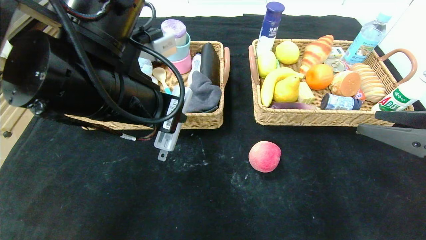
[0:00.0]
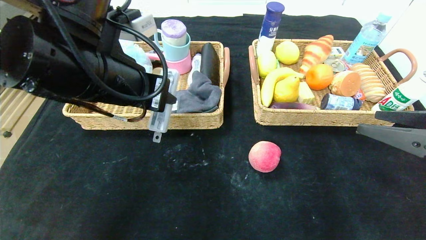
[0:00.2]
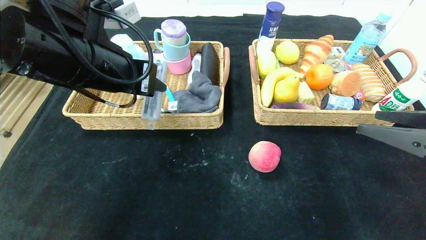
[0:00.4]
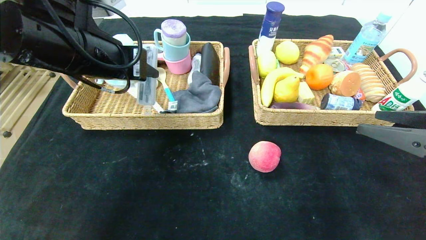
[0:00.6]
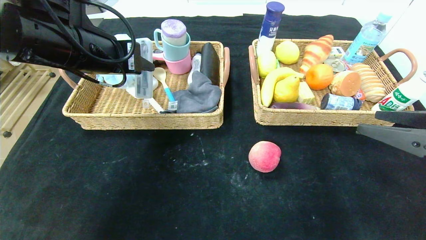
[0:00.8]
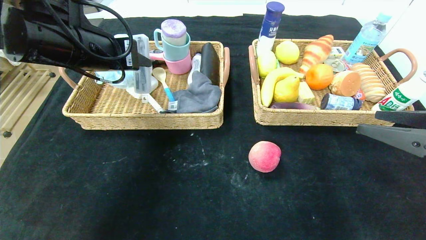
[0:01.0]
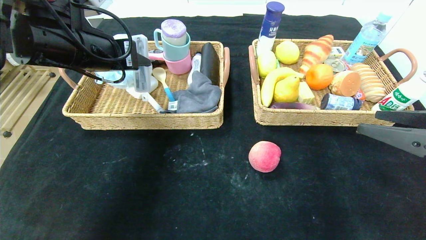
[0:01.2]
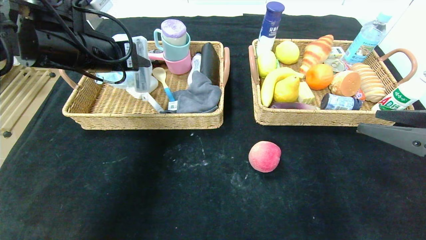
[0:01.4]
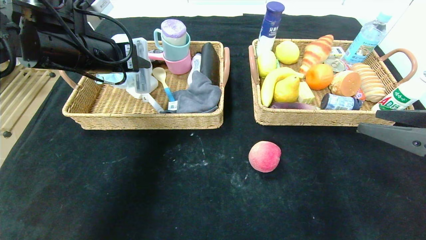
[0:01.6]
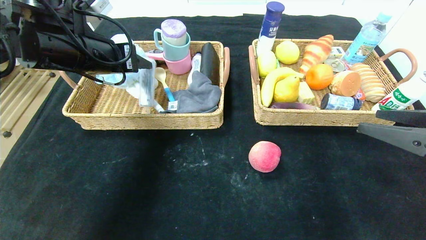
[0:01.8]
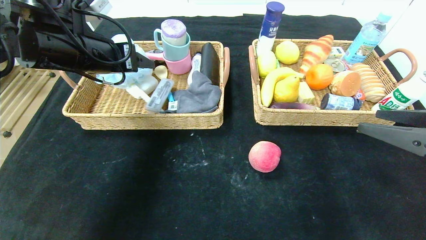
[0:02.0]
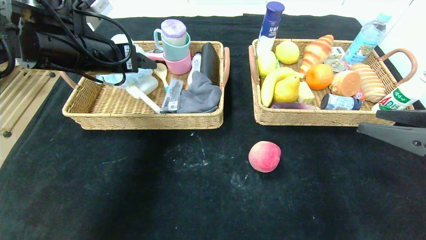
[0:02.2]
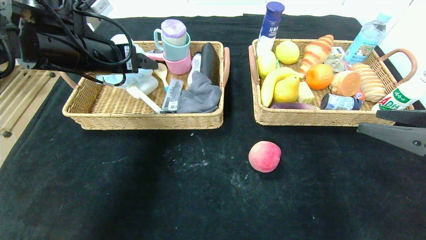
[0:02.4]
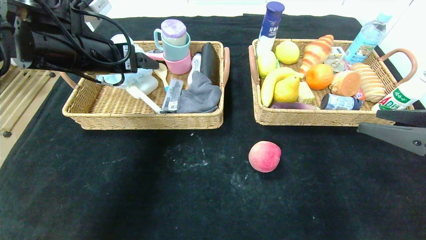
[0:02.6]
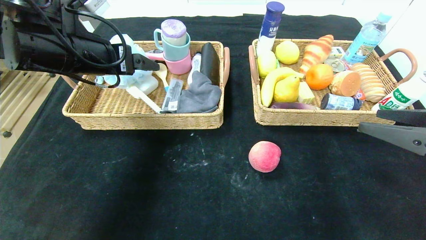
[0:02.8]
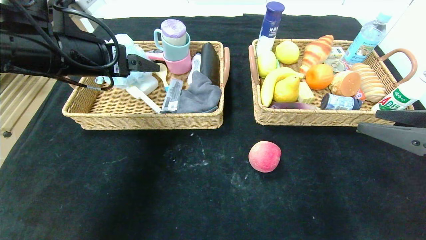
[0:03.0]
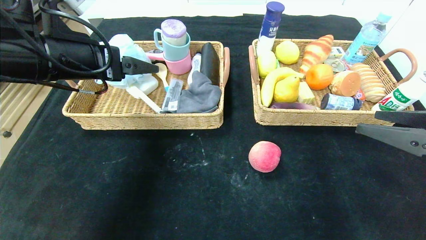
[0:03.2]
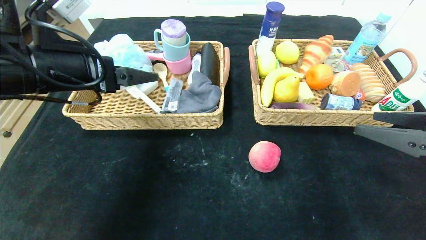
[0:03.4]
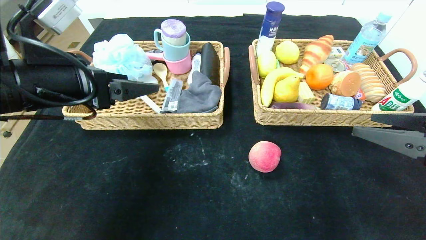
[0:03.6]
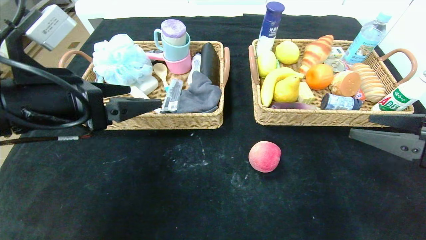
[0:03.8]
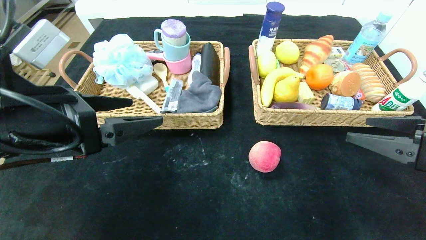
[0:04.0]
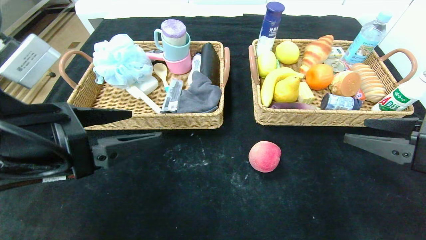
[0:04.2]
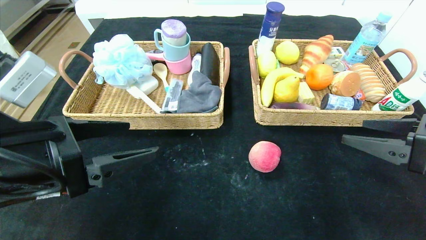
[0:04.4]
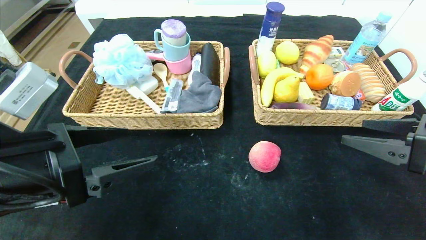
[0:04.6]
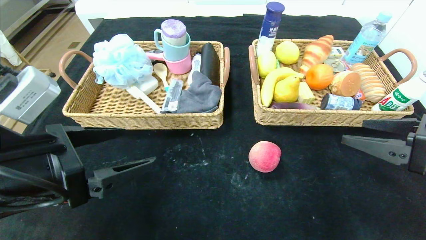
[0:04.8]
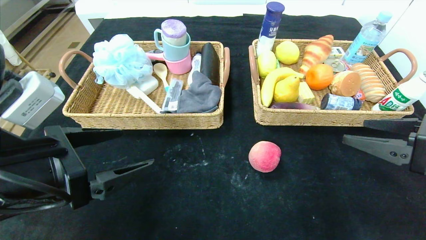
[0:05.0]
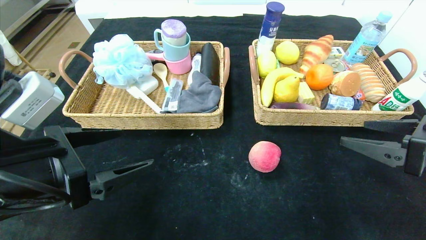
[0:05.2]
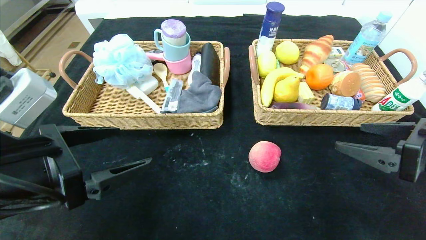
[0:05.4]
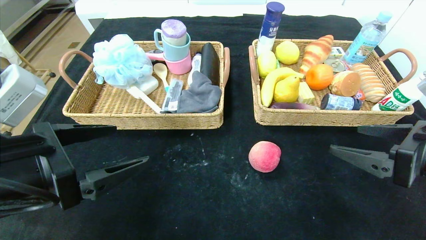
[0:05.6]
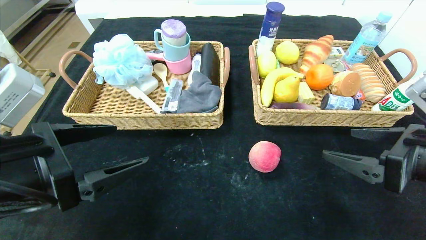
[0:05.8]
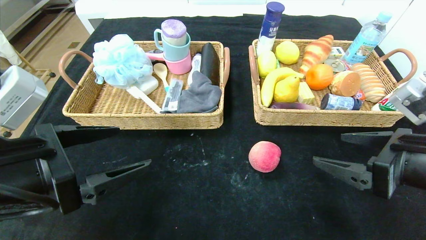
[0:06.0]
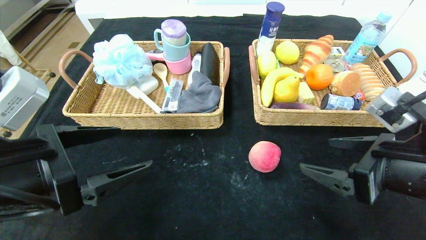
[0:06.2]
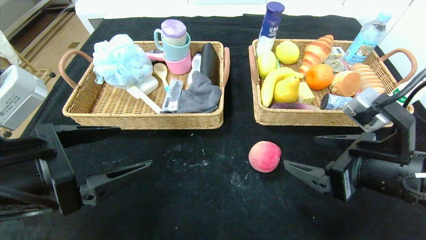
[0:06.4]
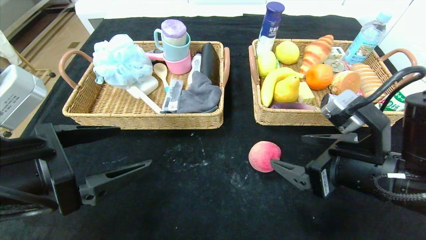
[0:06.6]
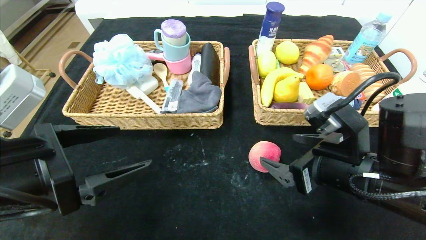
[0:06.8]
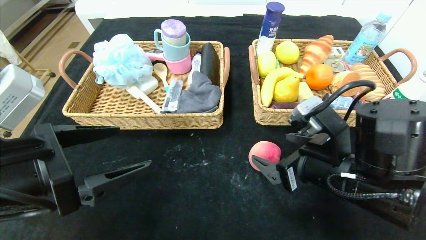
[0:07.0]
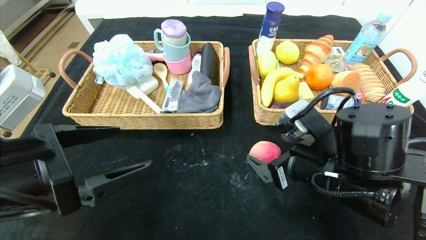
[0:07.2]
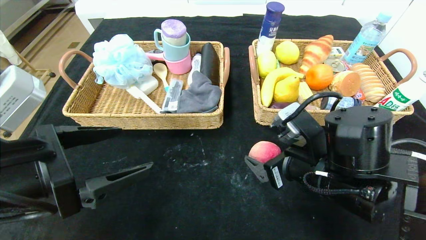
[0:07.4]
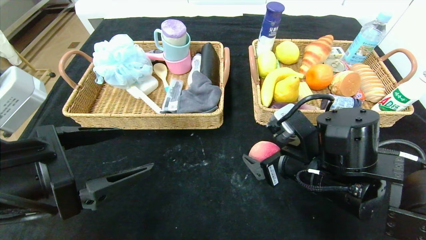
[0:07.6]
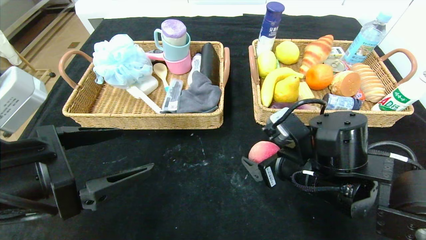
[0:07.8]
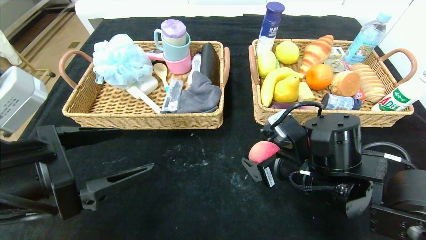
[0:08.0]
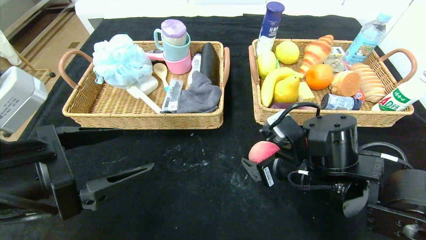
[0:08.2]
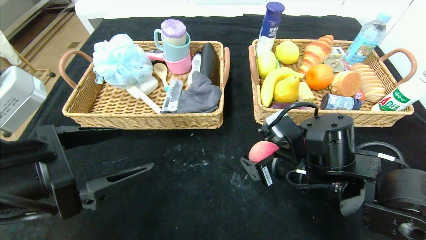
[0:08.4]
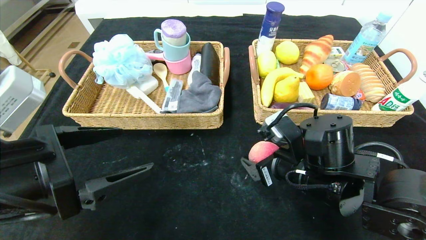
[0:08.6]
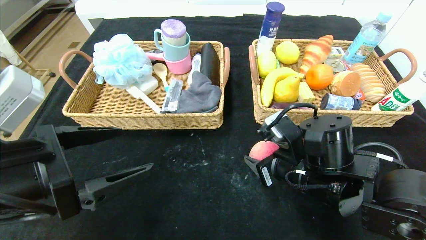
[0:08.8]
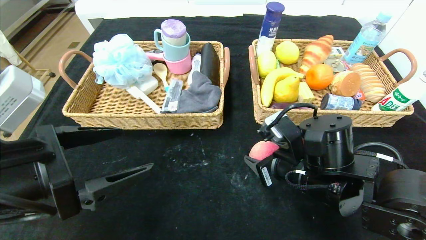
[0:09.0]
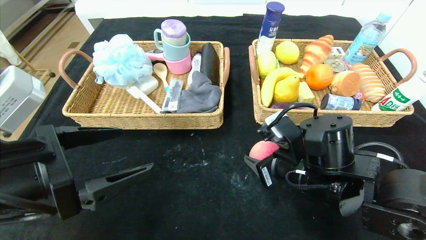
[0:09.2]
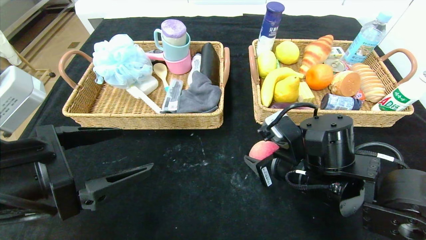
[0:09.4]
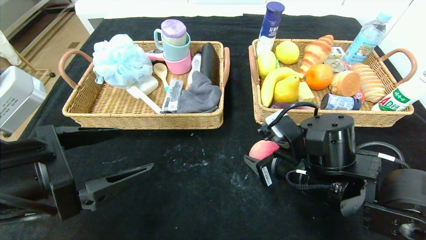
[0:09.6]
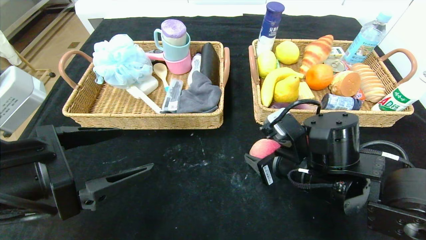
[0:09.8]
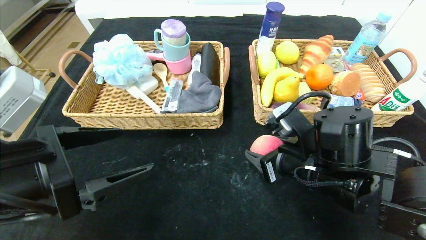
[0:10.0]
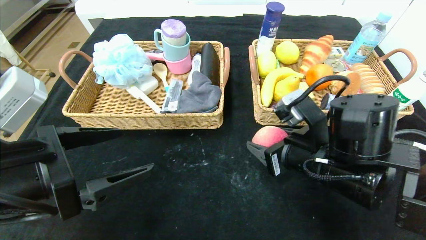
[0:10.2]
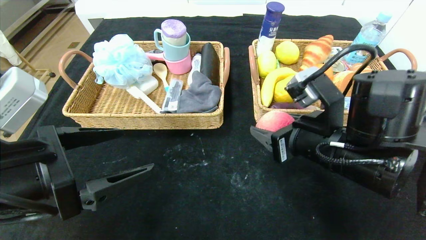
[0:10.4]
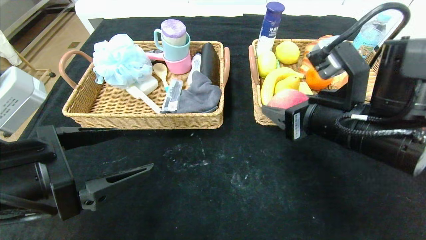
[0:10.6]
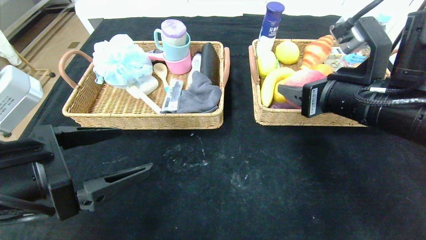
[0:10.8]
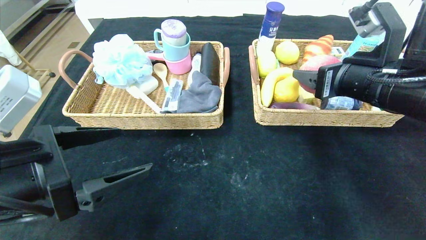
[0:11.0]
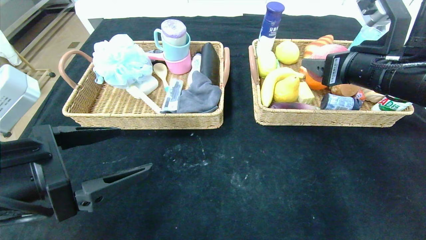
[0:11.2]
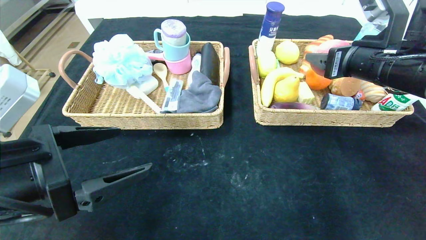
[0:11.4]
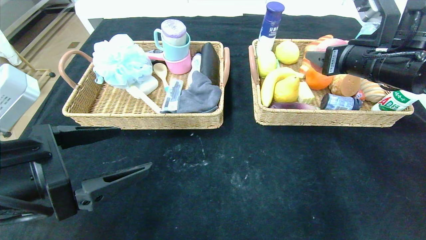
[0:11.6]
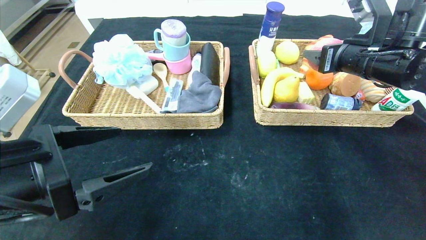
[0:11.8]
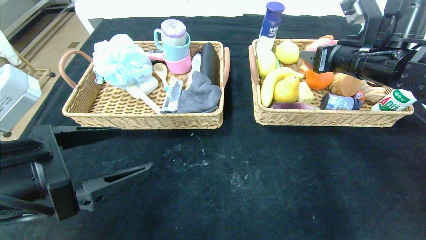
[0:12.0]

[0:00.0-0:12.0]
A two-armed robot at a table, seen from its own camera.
Step, 0:00.0 to 0:02.2: Grasp the compass and put it in the left basket.
0:00.0 to 0:01.6: The left gripper goes about 15 cm forward and to the left.
0:01.6 to 0:03.0: The left gripper opens its fingers.
0:03.0 to 0:04.4: The left gripper shifts some 15 cm backward and downward.
0:04.4 to 0:06.0: The right gripper heads to the left, covering some 5 cm.
0:06.0 to 0:07.6: The right gripper is displaced to the left, forward and downward by about 15 cm.
0:07.6 to 0:09.0: The right gripper closes.
0:09.0 to 0:10.4: The right gripper goes some 5 cm upward.
0:10.4 to 0:12.0: The right gripper is displaced forward, to the right and upward by some 20 cm.

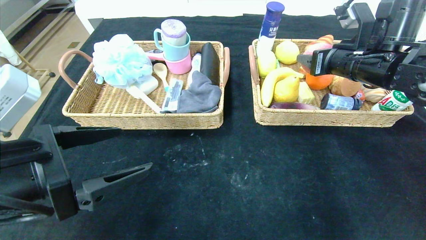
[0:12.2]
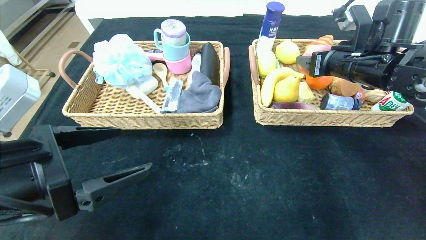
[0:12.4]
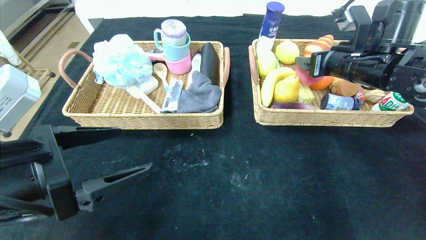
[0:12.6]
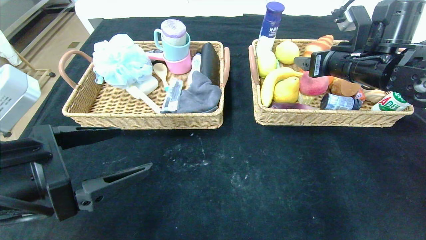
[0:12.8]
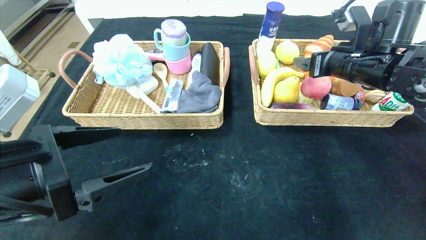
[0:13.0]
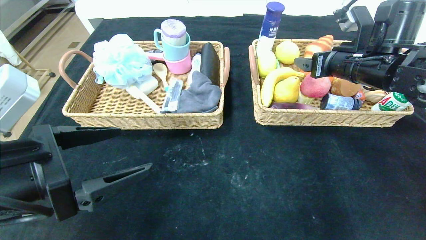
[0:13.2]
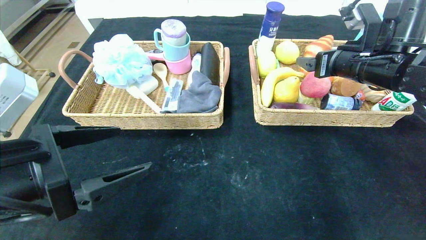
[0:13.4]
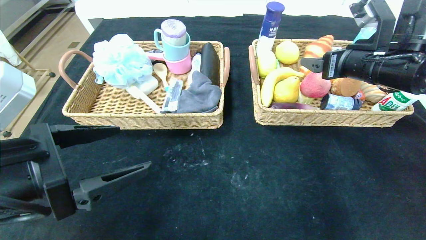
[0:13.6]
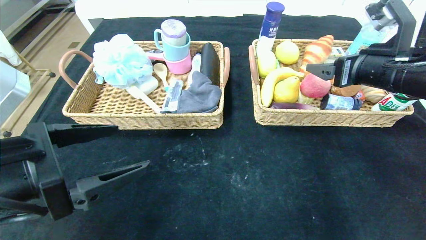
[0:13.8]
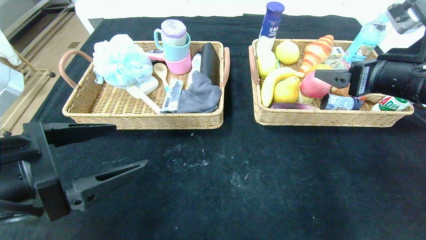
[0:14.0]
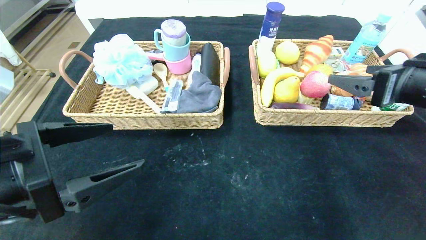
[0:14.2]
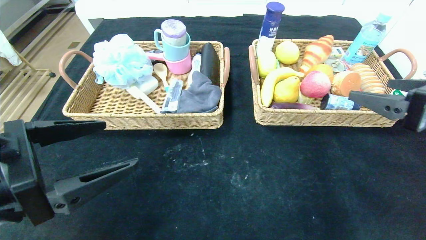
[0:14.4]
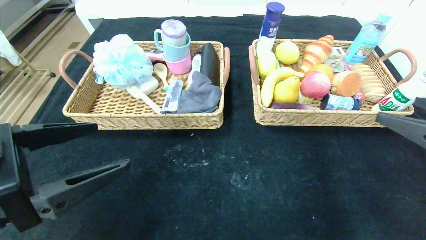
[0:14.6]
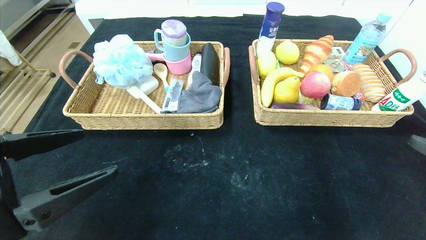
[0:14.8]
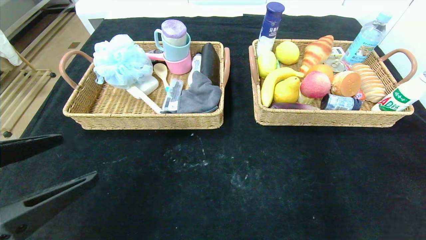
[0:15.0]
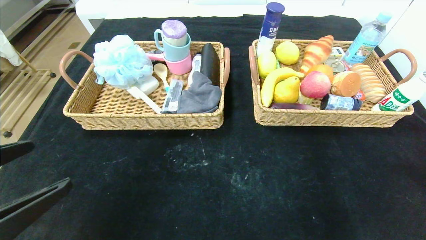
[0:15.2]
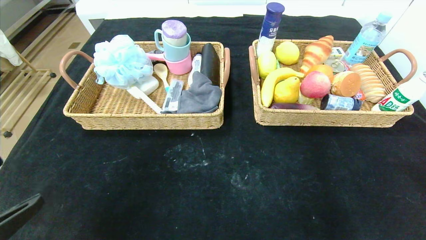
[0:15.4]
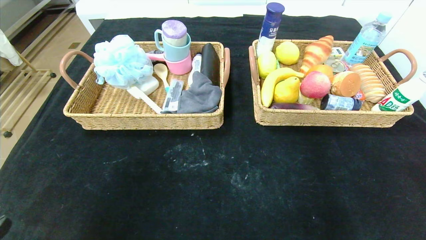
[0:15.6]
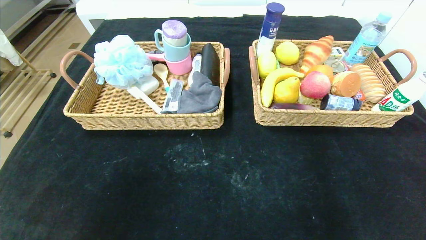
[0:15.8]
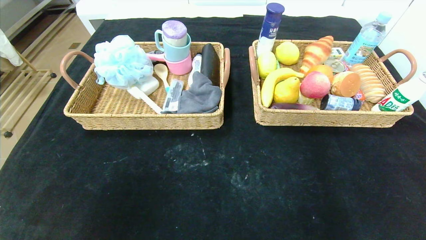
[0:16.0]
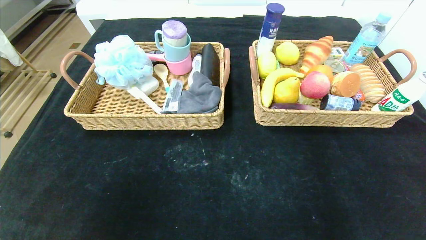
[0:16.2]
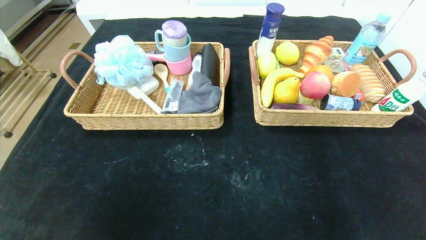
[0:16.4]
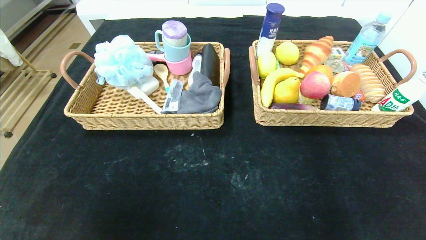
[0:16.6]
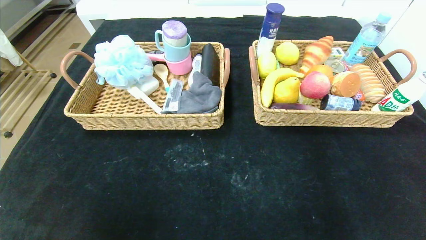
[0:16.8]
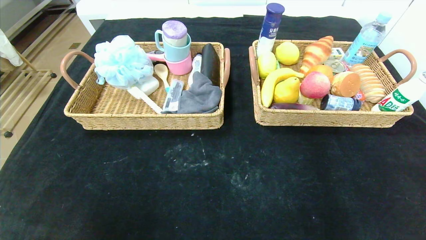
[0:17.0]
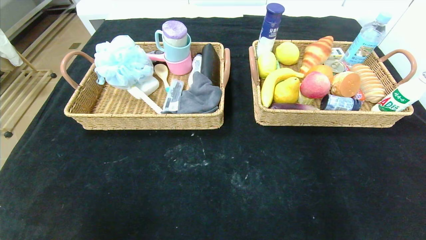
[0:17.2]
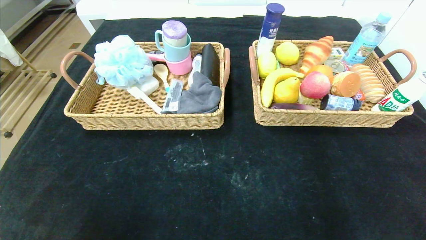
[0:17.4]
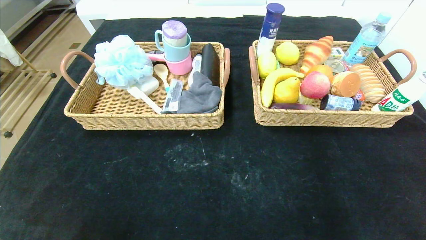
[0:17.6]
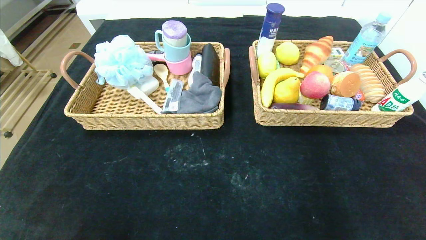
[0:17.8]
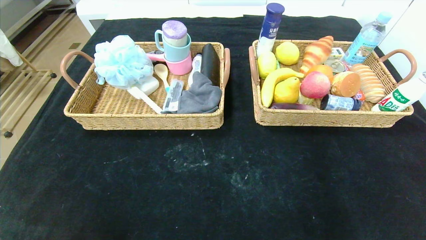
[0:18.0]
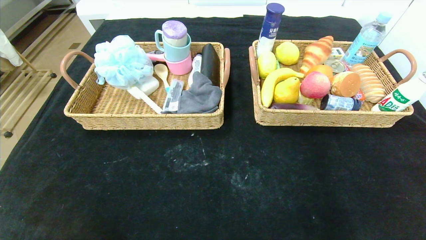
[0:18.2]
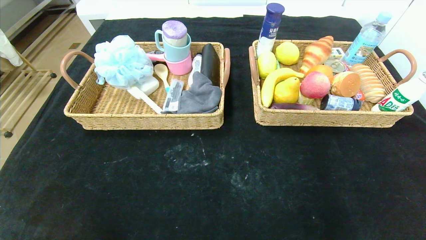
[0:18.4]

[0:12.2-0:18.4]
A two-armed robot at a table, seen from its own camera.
0:12.2 to 0:13.8: The right gripper heads backward, covering approximately 5 cm, and opens its fingers.
0:13.8 to 0:15.4: The right gripper moves backward, some 30 cm. The left gripper travels backward and to the left by approximately 10 cm.
0:15.4 to 0:16.8: Both grippers move backward and downward, about 10 cm.
